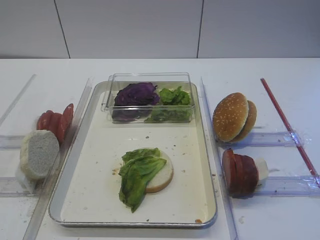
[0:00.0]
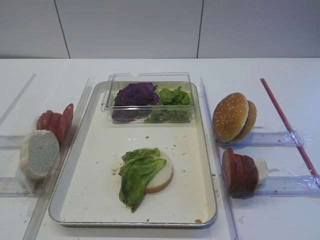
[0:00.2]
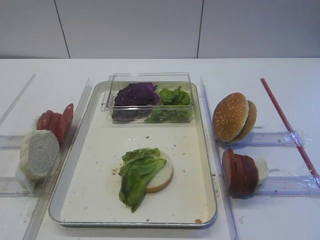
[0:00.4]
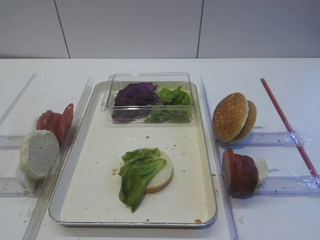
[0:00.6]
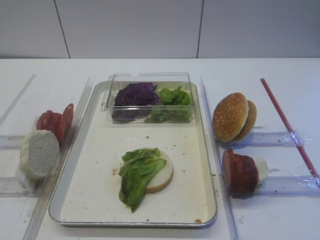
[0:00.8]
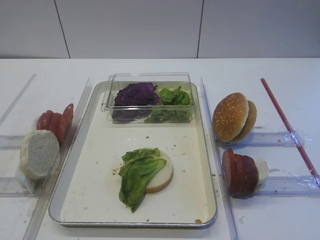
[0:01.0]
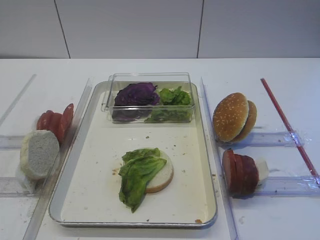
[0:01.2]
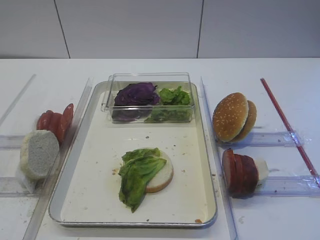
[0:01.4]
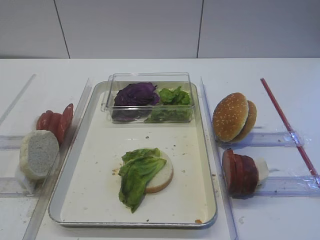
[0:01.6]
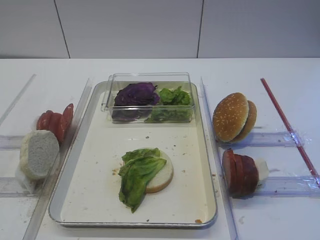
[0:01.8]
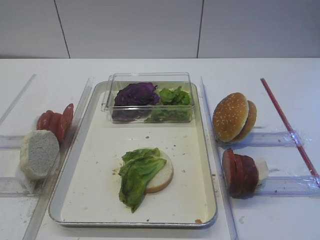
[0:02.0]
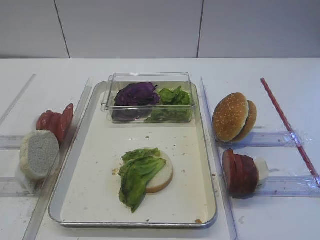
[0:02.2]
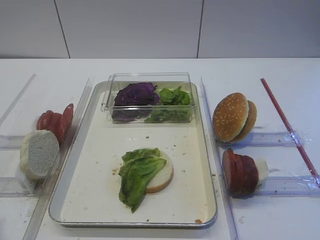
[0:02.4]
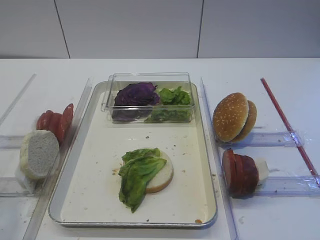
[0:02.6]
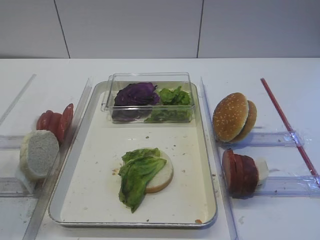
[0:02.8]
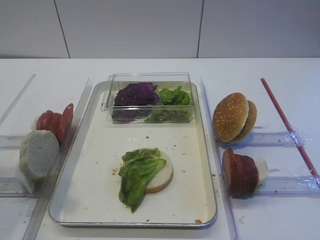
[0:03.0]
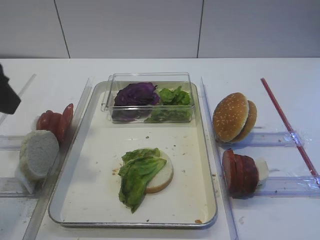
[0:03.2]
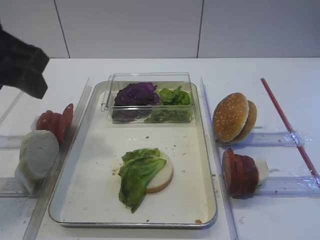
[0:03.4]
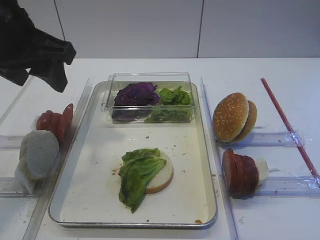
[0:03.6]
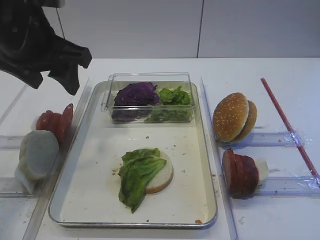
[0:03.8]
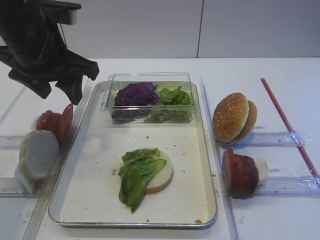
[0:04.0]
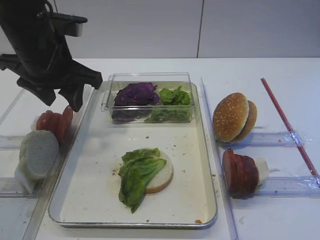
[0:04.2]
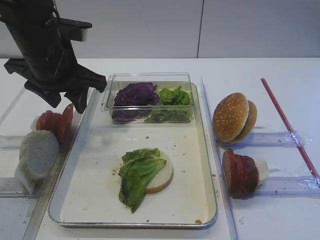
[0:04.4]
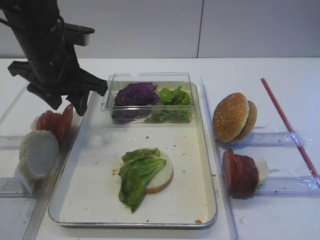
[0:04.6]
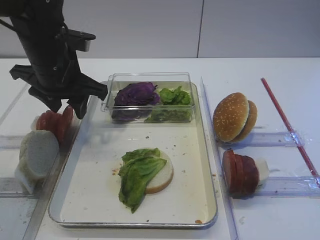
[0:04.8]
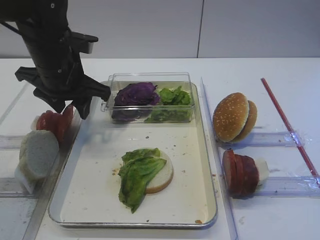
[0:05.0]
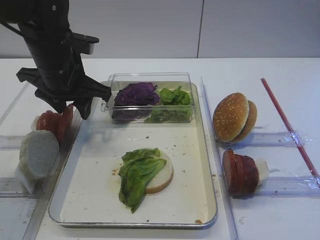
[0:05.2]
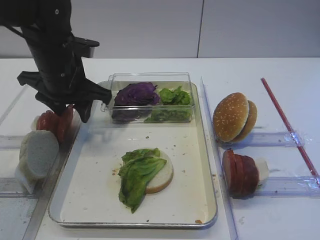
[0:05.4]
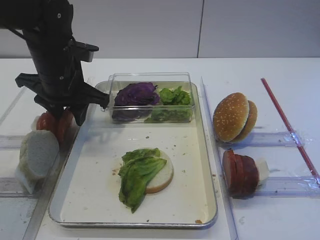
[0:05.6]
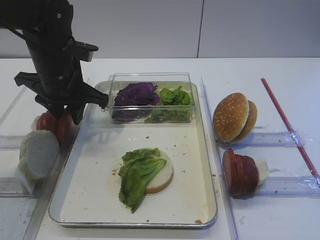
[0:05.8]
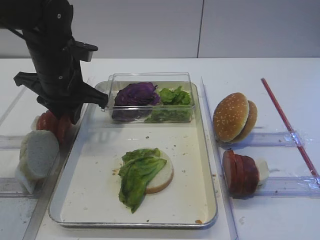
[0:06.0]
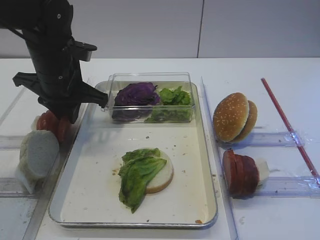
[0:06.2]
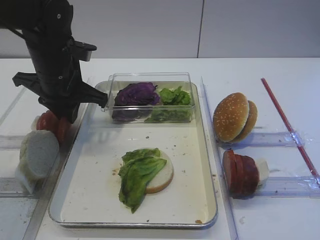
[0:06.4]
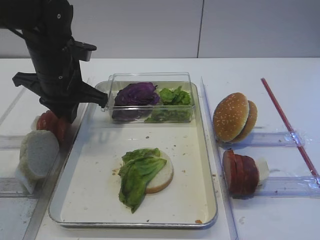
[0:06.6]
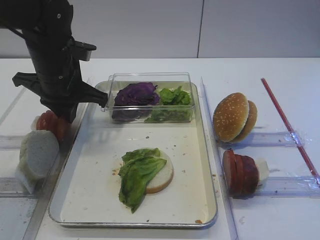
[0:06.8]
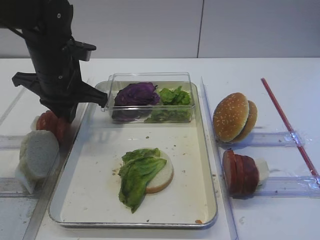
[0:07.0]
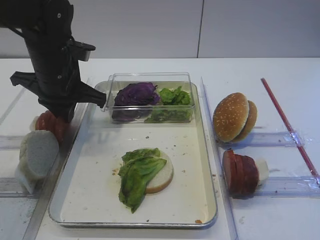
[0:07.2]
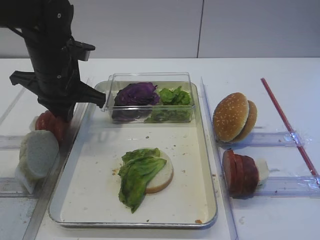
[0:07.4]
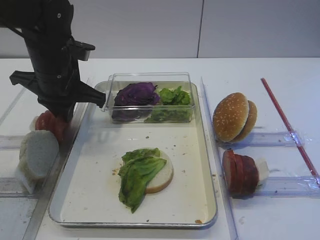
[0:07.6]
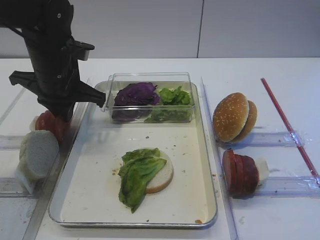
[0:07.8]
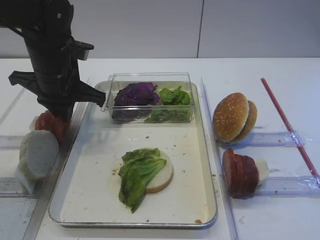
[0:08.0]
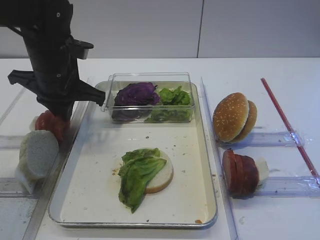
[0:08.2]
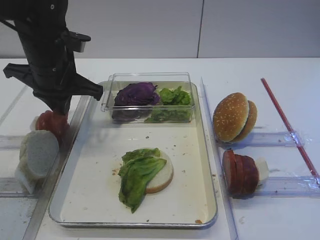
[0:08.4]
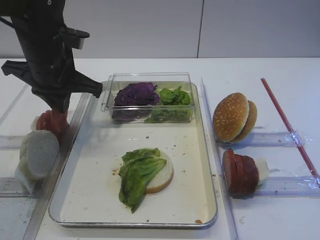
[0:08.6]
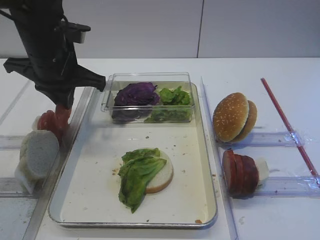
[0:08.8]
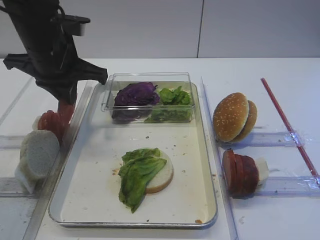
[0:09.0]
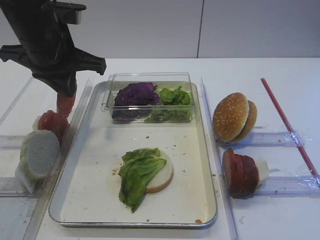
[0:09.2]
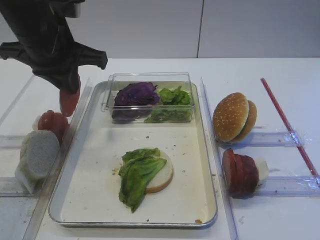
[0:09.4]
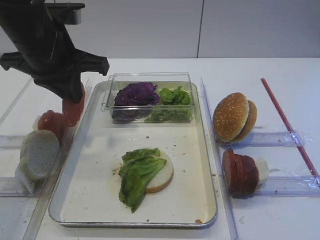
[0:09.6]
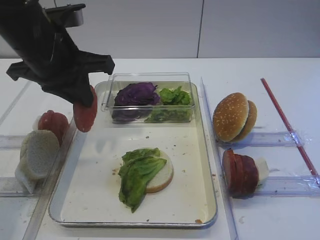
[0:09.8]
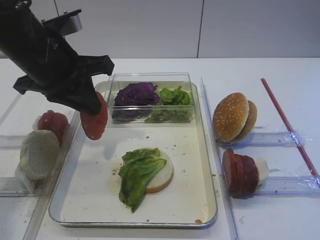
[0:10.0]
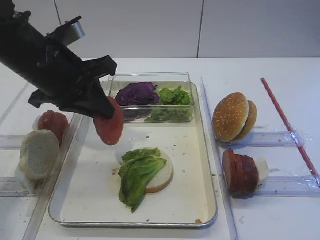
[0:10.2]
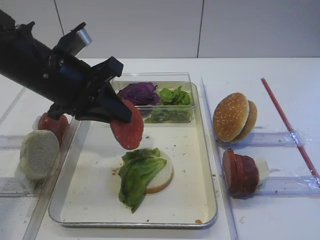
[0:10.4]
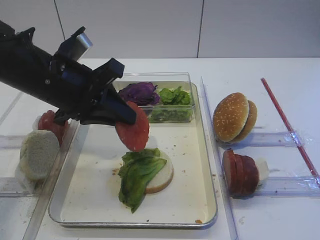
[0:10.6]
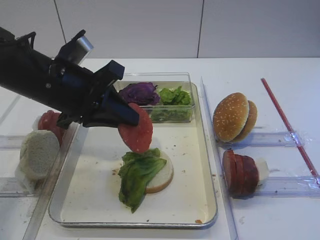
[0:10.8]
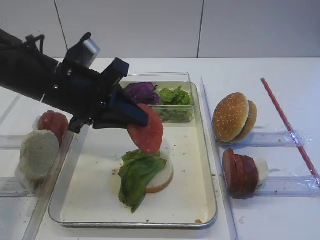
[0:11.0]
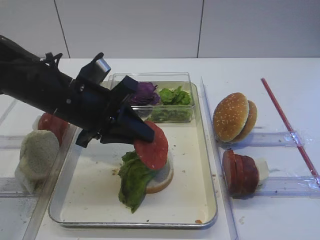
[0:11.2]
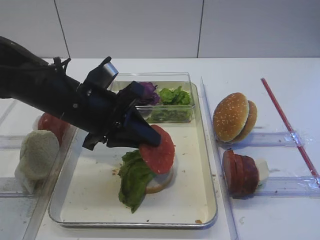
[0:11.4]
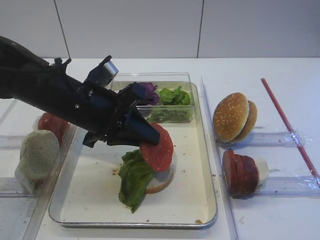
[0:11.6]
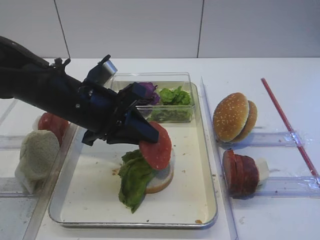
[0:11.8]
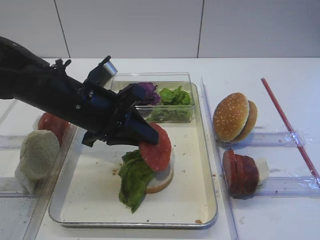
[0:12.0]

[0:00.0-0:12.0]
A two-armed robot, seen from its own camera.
Step, 0:00.0 to 0:08.8: Pick up the tomato slice with the left gripper.
0:01.6 to 0:03.0: The left gripper travels forward and upward by roughly 15 cm.
0:03.0 to 0:04.4: The left gripper heads forward, covering roughly 20 cm.
0:04.4 to 0:06.0: The left gripper closes.
0:06.0 to 0:07.6: The left gripper closes up.
0:07.6 to 0:09.0: The grippers move only a little.
0:09.0 to 0:10.4: The left gripper moves backward, roughly 5 cm.
0:10.4 to 0:12.0: The left gripper goes roughly 5 cm downward.

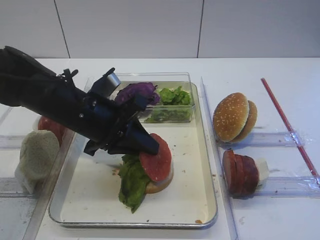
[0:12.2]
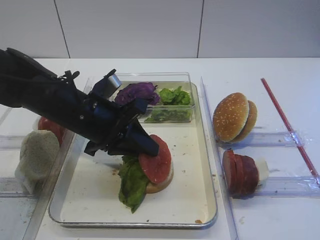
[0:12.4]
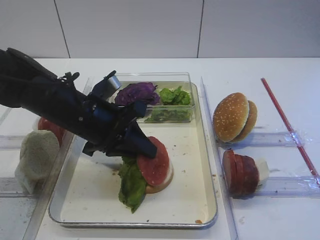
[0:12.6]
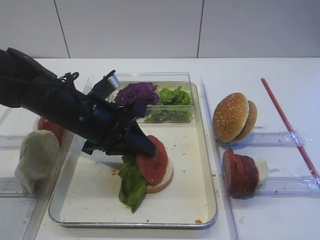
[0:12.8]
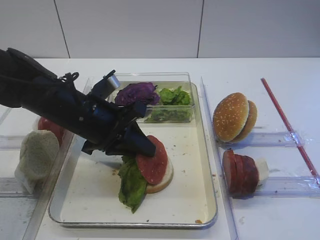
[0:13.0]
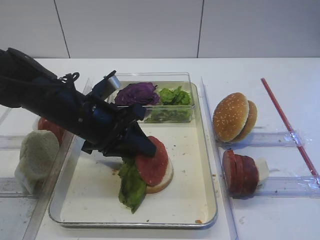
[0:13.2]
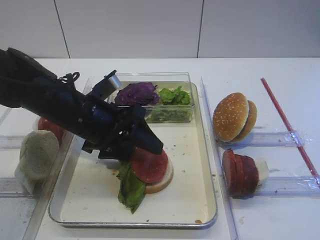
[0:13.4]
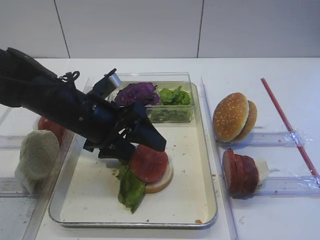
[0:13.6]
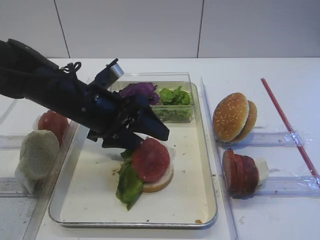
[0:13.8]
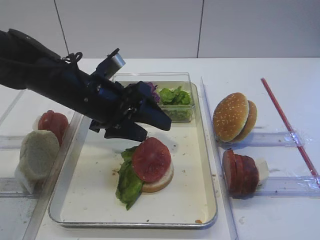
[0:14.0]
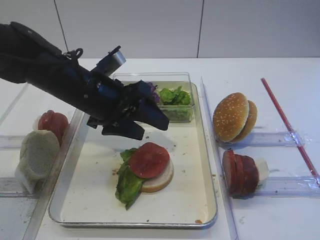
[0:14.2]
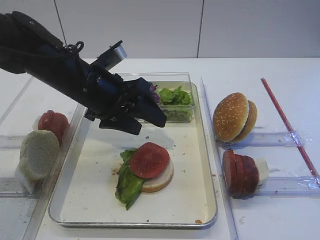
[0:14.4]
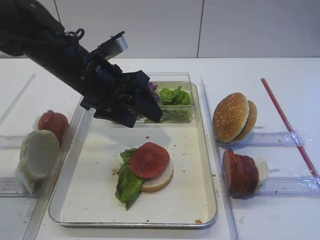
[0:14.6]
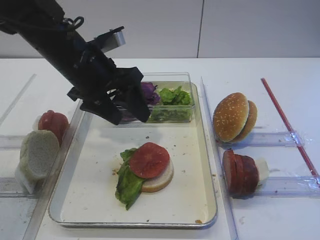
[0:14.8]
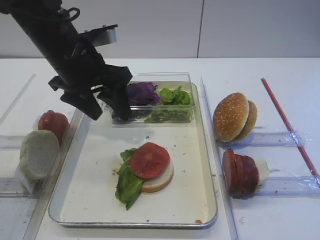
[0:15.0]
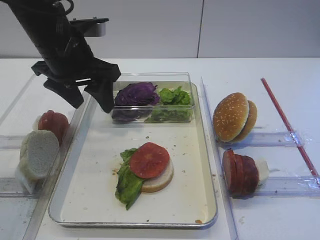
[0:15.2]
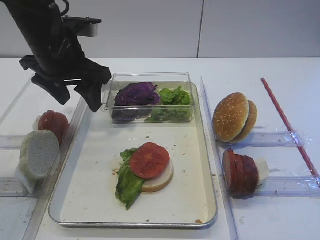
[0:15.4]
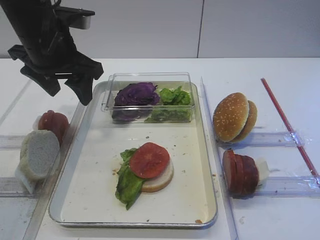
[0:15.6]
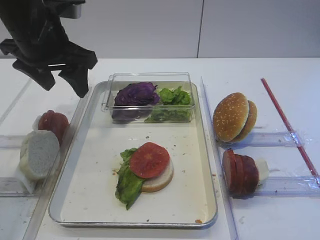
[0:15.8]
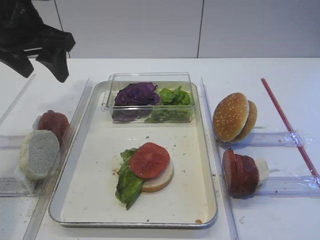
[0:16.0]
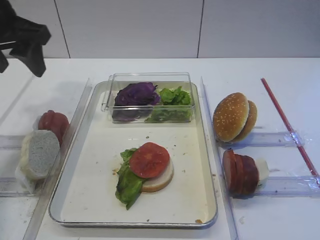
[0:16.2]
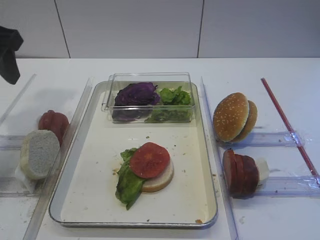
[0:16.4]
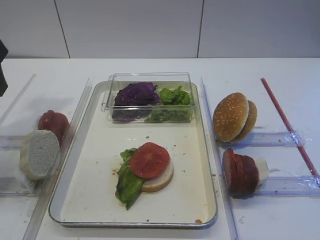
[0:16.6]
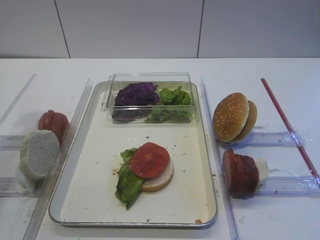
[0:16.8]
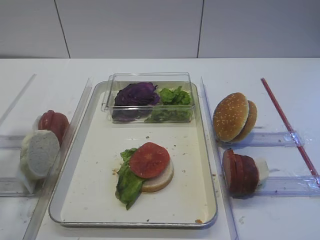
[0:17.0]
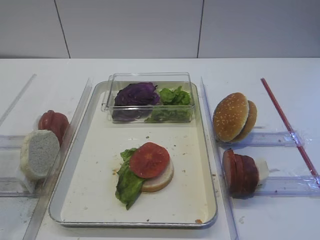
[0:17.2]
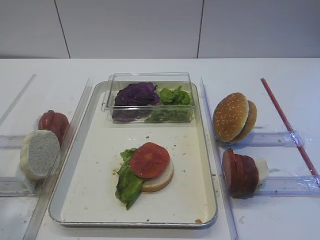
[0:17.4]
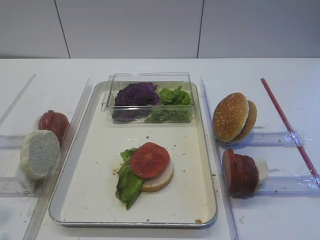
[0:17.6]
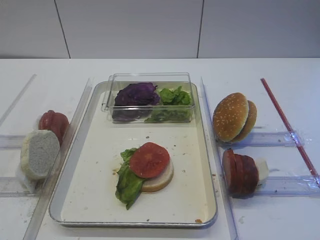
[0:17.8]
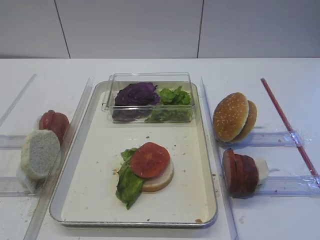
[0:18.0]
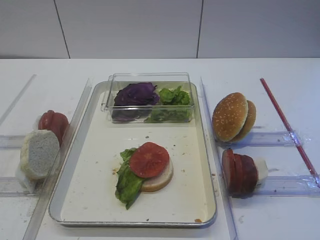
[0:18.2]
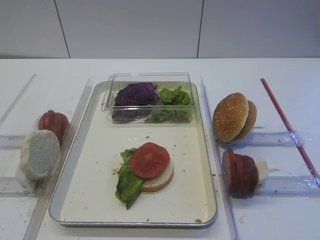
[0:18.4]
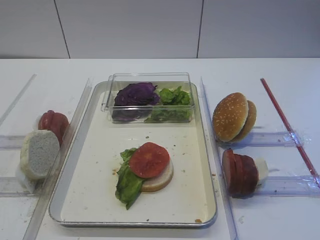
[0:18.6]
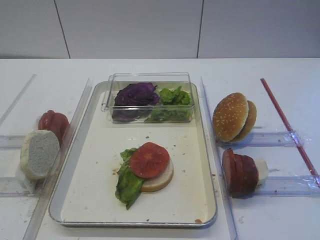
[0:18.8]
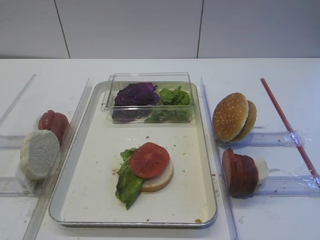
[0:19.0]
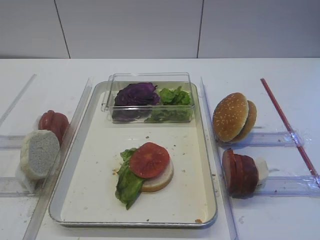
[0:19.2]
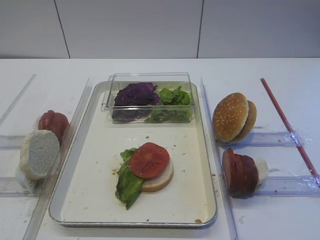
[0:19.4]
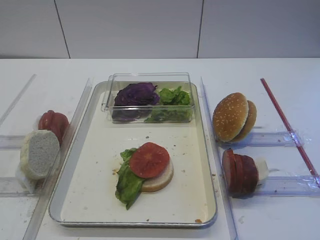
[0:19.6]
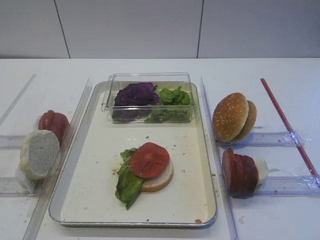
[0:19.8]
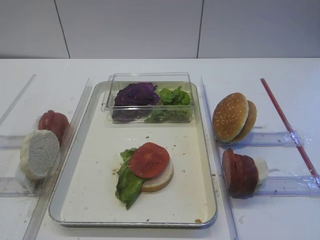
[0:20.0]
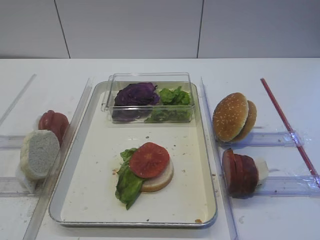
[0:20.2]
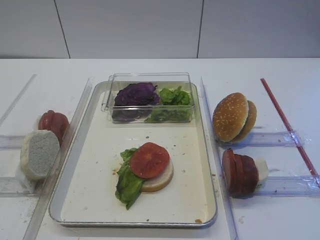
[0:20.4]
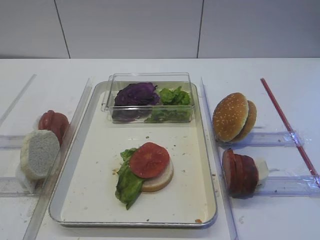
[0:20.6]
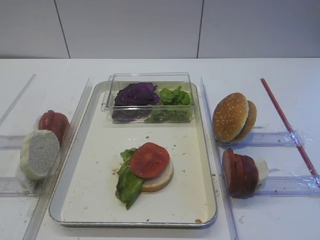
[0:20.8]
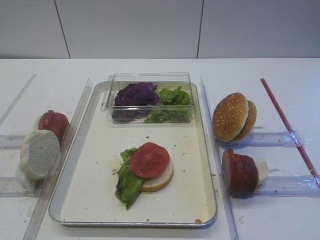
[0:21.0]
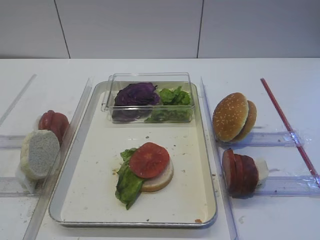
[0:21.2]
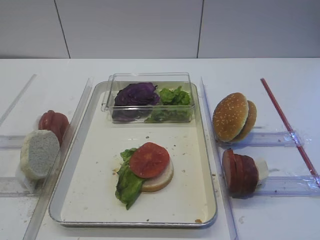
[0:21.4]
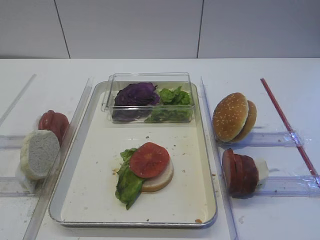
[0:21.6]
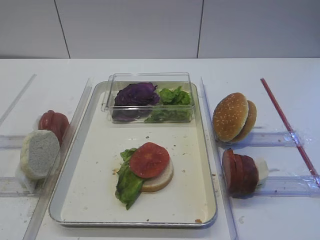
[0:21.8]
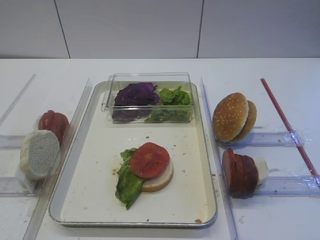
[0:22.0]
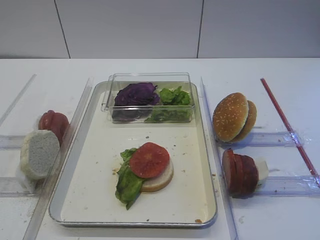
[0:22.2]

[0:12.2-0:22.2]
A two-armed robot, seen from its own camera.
Step, 0:12.2 to 0:14.4: Place the tomato slice on the lettuce leaf with the left gripper.
0:12.2 to 0:13.6: The left gripper opens up.
0:13.6 to 0:15.0: The left gripper moves upward, about 10 cm.
0:15.0 to 0:16.4: The left gripper moves to the left and upward, about 15 cm.
0:16.4 to 0:18.0: The left gripper heads backward, covering about 30 cm.
0:18.0 to 0:22.2: The two grippers keep their place.
